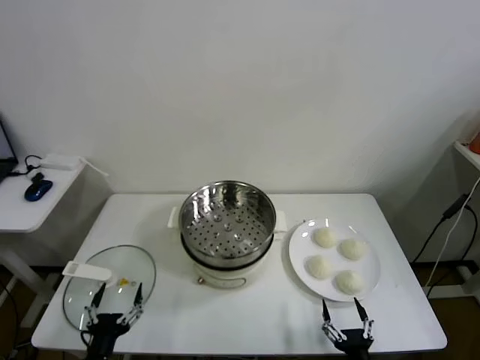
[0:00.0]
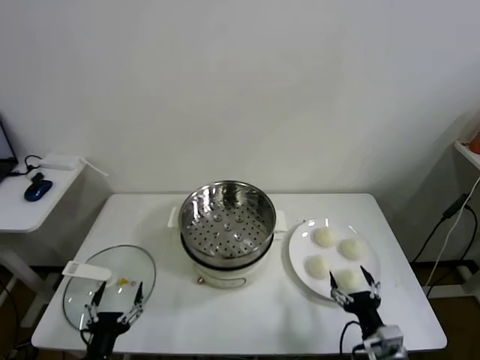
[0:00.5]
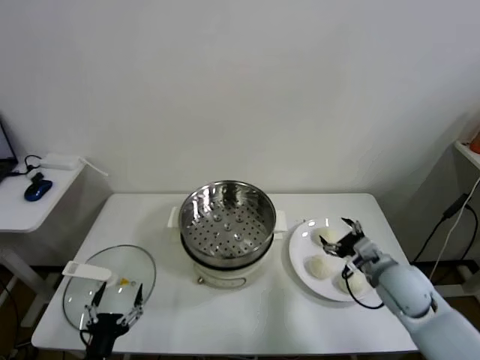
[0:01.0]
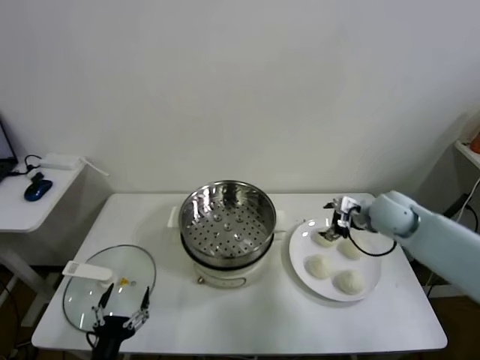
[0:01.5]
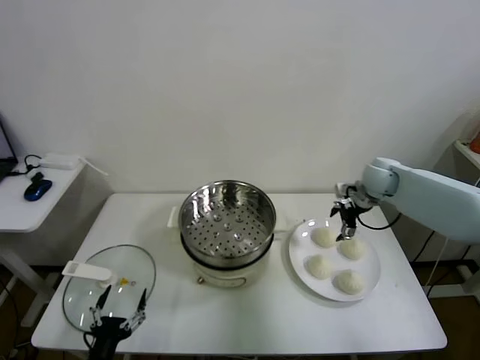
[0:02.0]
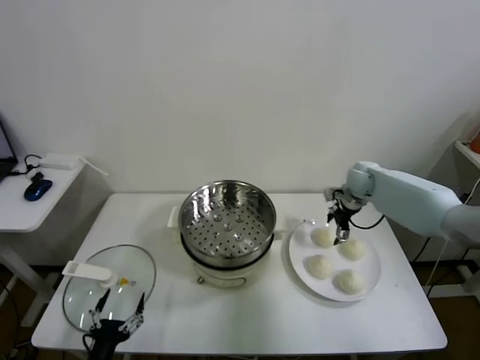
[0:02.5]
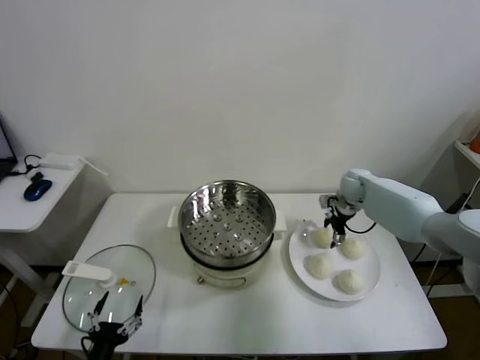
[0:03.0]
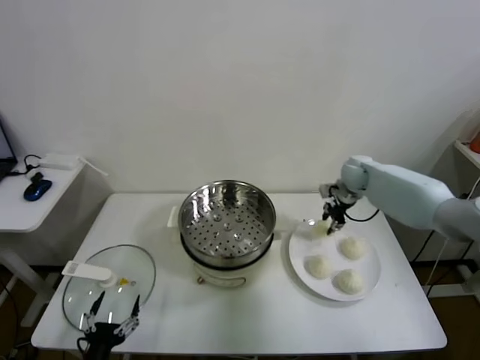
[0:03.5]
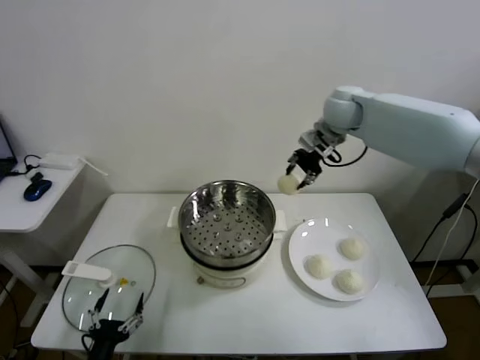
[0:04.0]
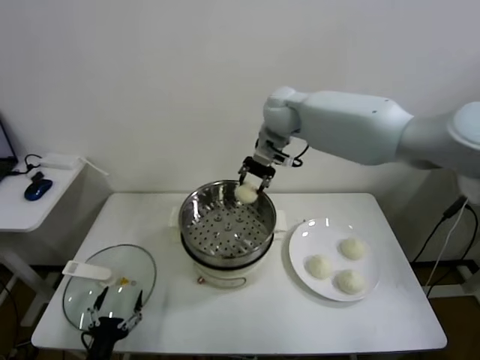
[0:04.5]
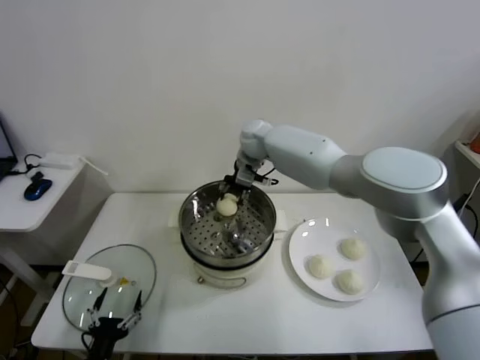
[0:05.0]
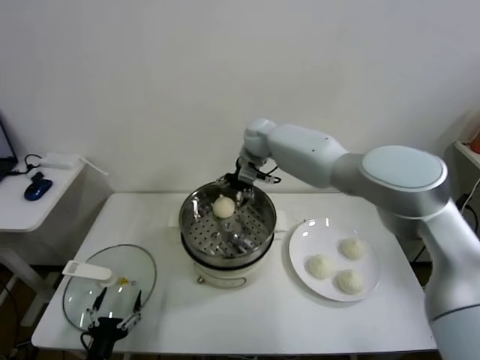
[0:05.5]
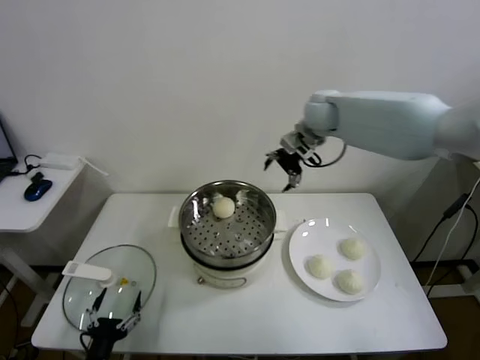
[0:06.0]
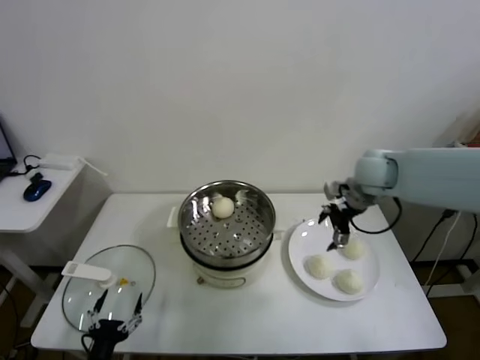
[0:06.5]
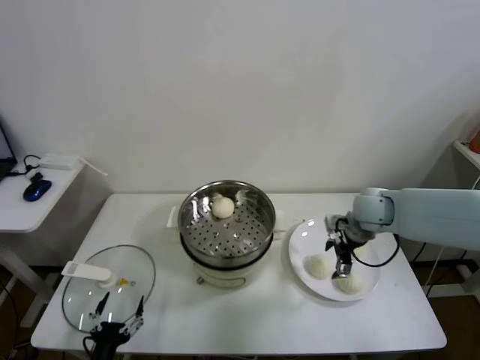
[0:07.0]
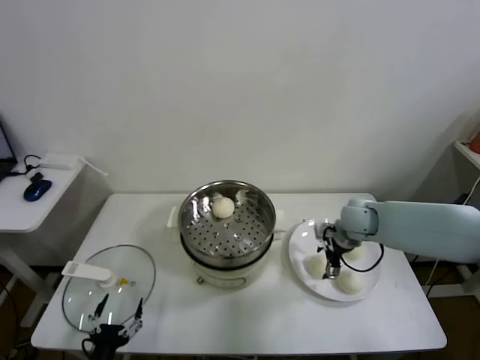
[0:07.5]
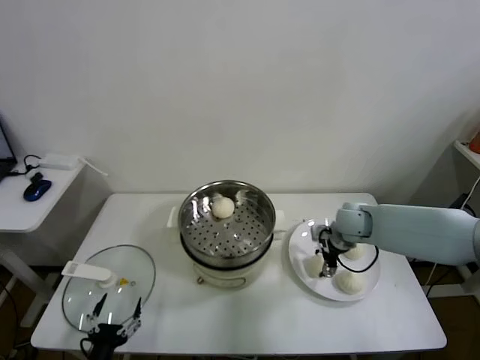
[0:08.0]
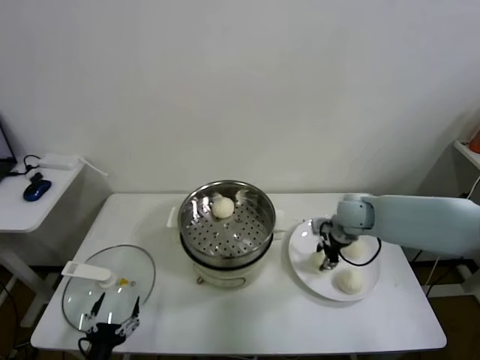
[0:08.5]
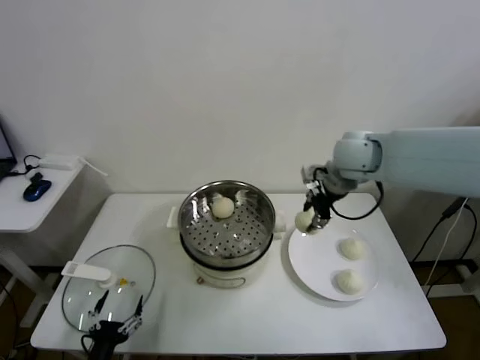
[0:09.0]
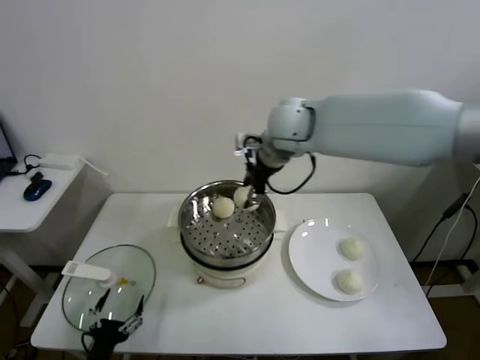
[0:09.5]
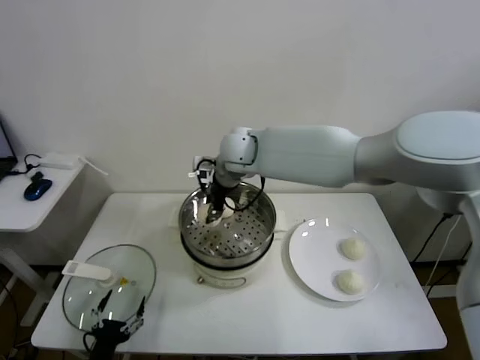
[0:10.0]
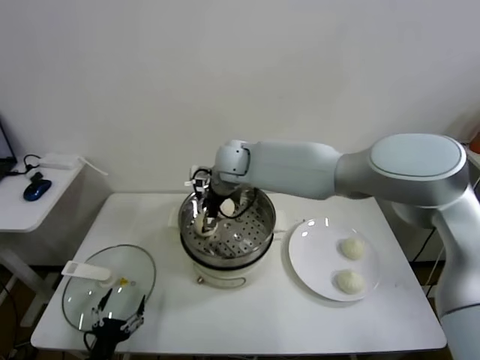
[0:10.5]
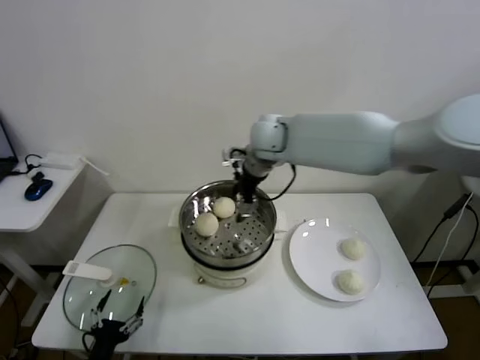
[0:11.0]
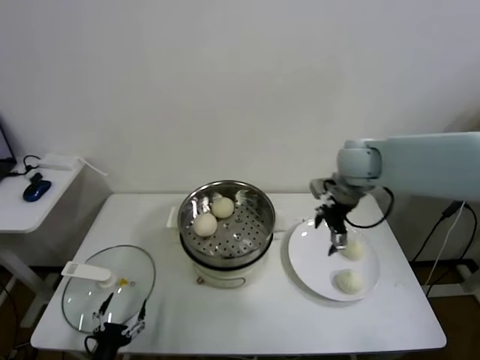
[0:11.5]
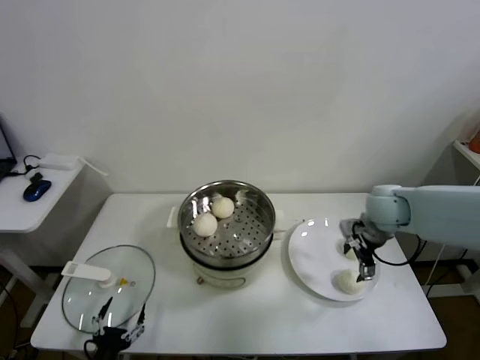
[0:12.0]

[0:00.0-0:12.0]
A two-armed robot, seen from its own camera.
Task of the whole recording: take steamed baozi put them in steamer.
Step, 0:00.0 to 0:03.0: Grasp the baozi in the plate with right gripper.
Step, 0:03.5 to 0:05.5: Place the baozi on the steamer with right gripper.
Step, 0:06.0 to 0:08.0: Grasp the baozi in the plate with right gripper.
Step, 0:08.5 to 0:10.5: Place the baozi on the steamer with right gripper.
0:02.0 to 0:04.0: The right gripper moves upward and to the left, approximately 25 cm, and closes.
0:04.0 to 0:06.0: The right gripper reaches some 15 cm to the left, then returns, and opens up.
0:06.0 to 0:08.0: The right gripper travels downward and backward by roughly 25 cm.
0:08.0 to 0:10.0: The right gripper shifts roughly 35 cm to the left and upward, and closes its fingers.
0:10.0 to 0:12.0: The right gripper goes about 35 cm to the right, and opens.

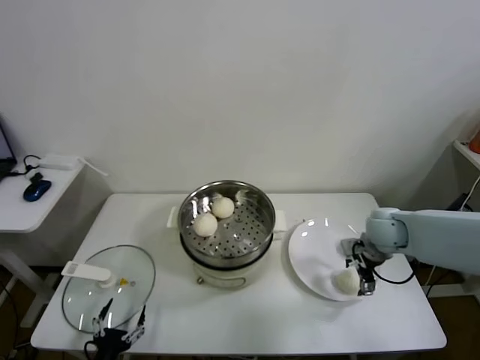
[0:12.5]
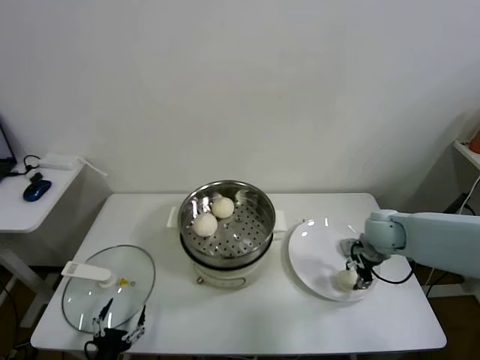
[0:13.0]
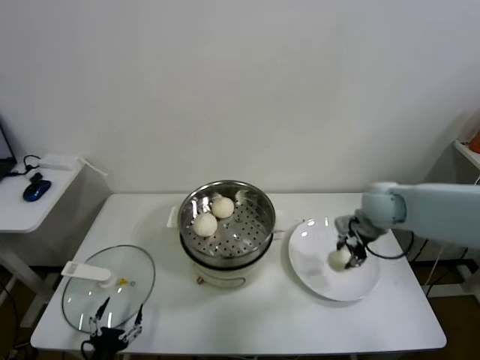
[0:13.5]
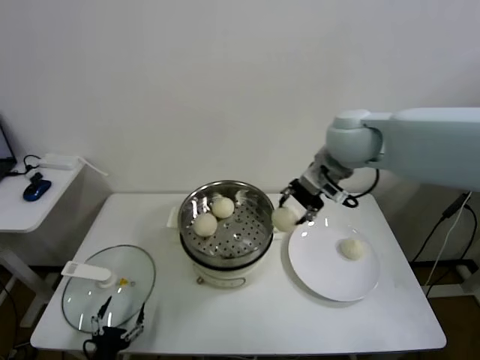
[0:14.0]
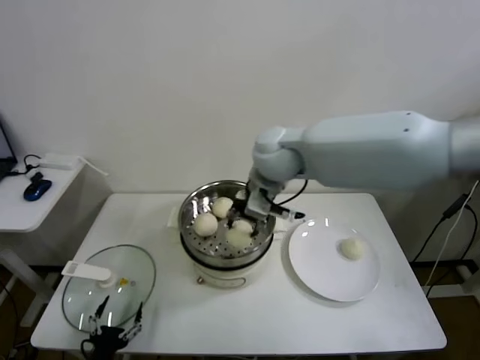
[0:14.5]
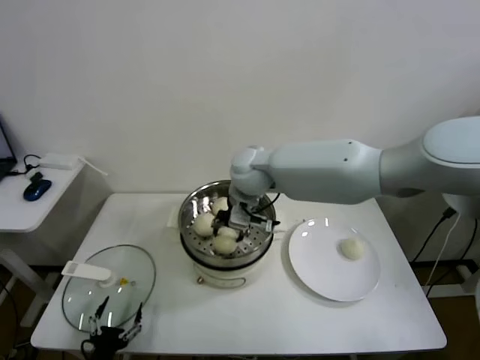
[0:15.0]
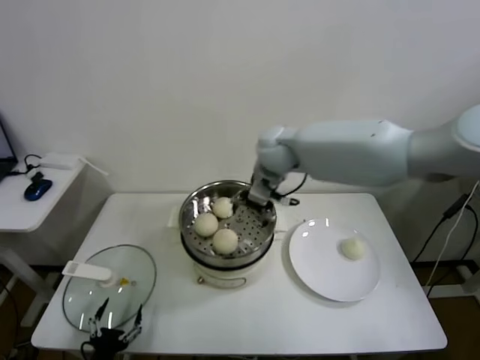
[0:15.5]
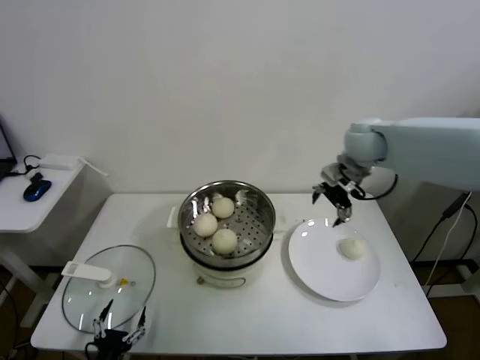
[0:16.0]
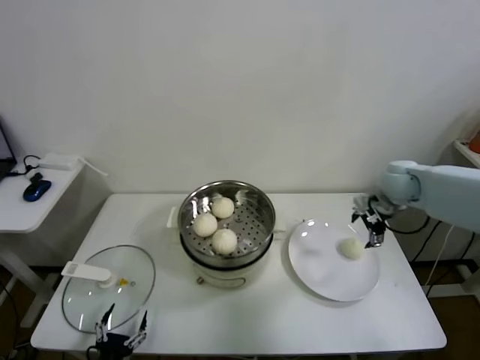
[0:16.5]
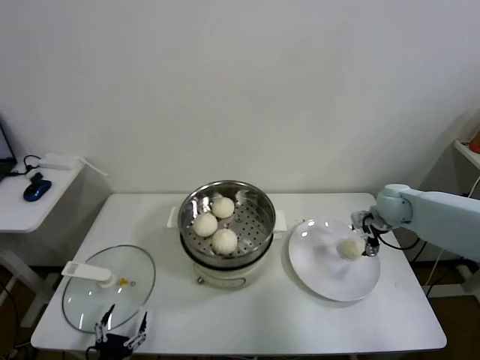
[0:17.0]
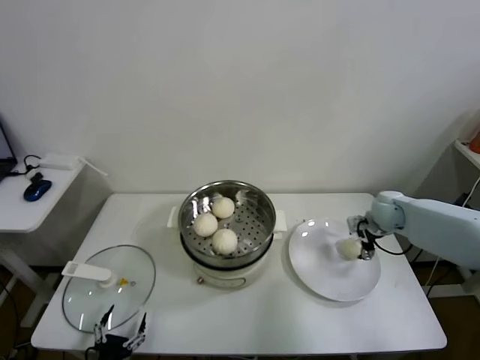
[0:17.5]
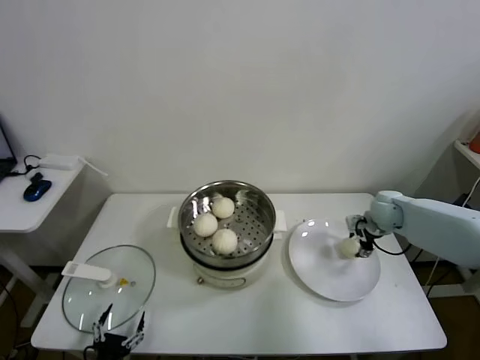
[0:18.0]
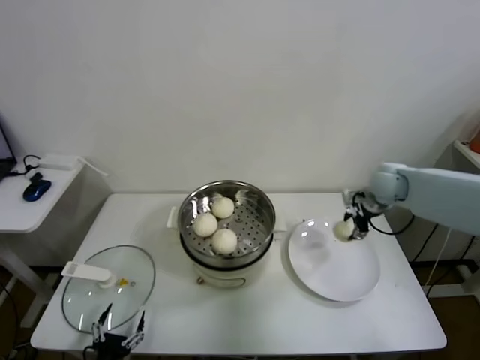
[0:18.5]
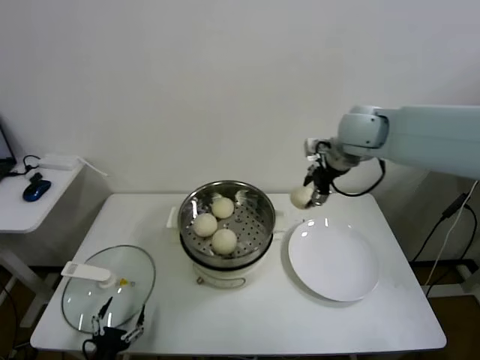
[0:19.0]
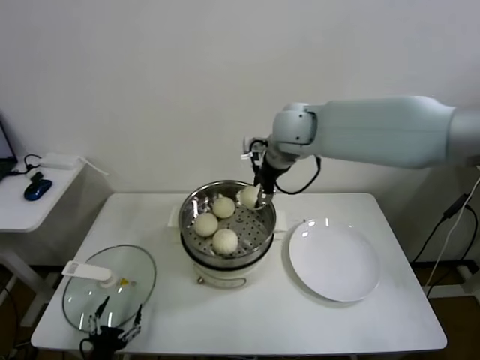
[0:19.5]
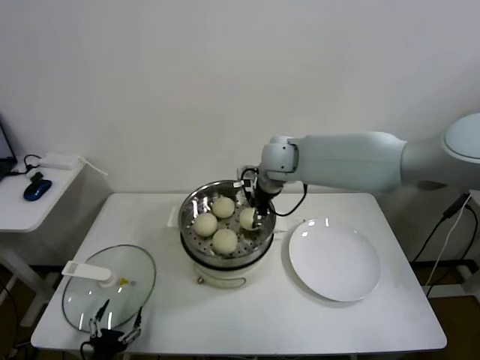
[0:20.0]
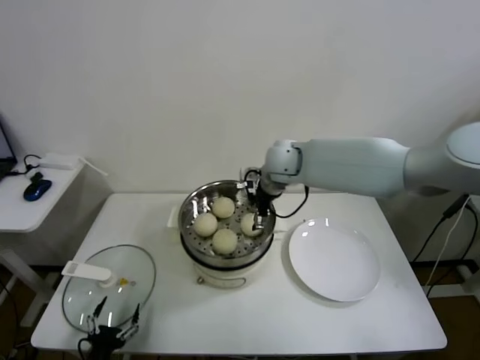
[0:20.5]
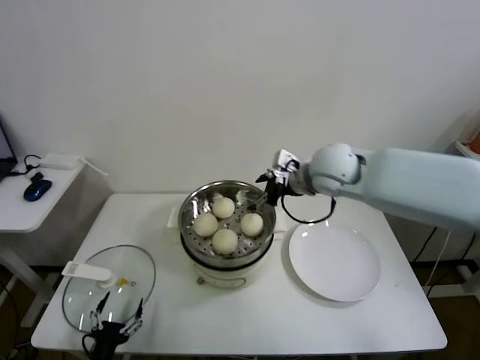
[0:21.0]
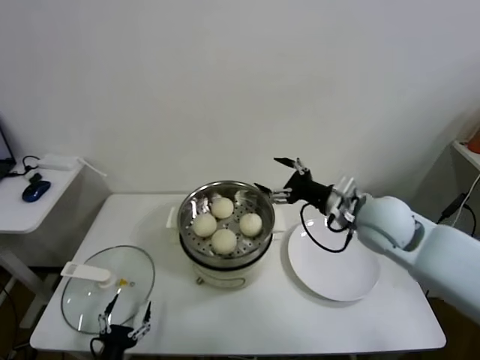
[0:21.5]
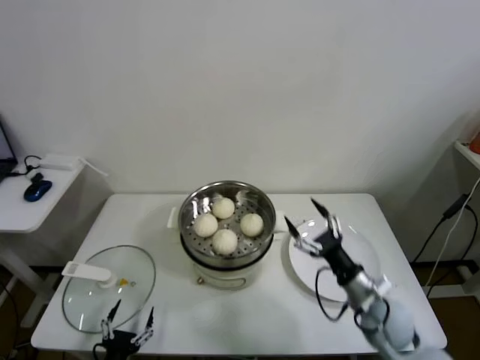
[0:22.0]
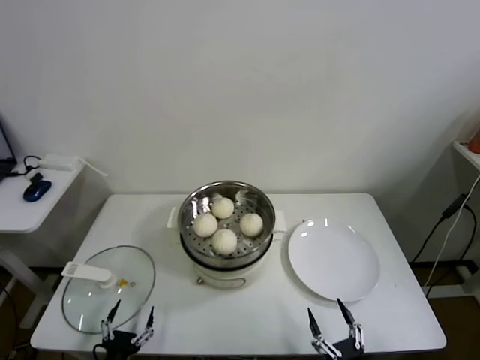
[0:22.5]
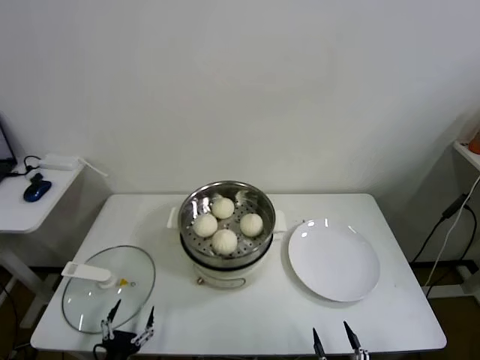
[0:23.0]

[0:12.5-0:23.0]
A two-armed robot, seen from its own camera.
Task of the whole recording: take steamed baozi put them in steamer.
Step, 0:13.5 to 0:15.0: Place the baozi on the steamer with right gripper.
Step, 0:15.5 to 0:17.5: Grasp the baozi in the plate with right gripper.
Step, 0:18.0 to 0:20.5: Place the baozi on the steamer with right gripper.
0:12.5 to 0:14.5: The right gripper moves to the left and upward, approximately 35 cm, and closes its fingers.
0:14.5 to 0:16.5: The right gripper travels to the right by some 30 cm, and opens its fingers.
0:16.5 to 0:19.0: The right gripper shifts roughly 15 cm upward and to the left, and closes up.
0:19.0 to 0:21.0: The right gripper goes approximately 10 cm to the left, and opens.
0:21.0 to 0:23.0: The right gripper shifts roughly 60 cm backward and downward.

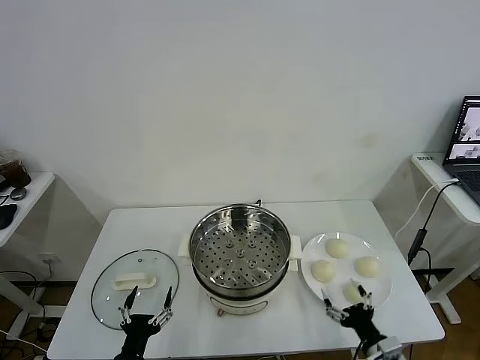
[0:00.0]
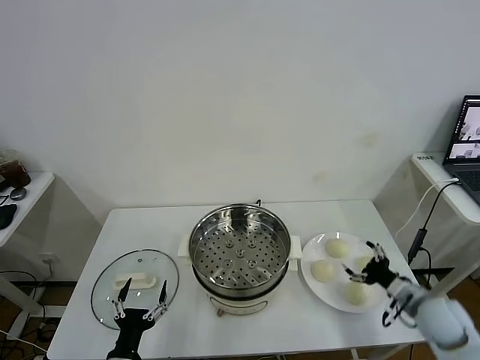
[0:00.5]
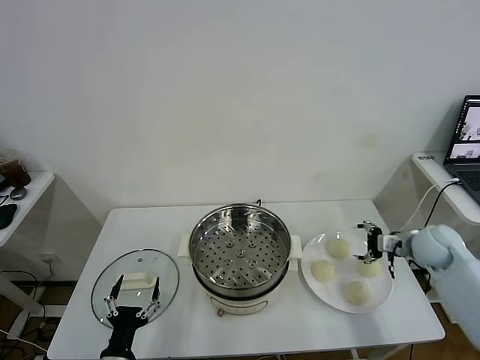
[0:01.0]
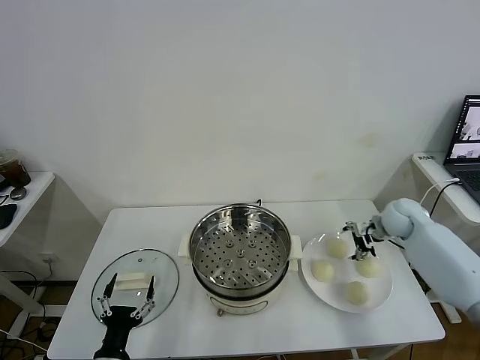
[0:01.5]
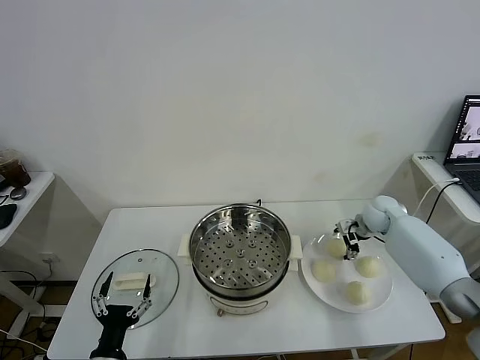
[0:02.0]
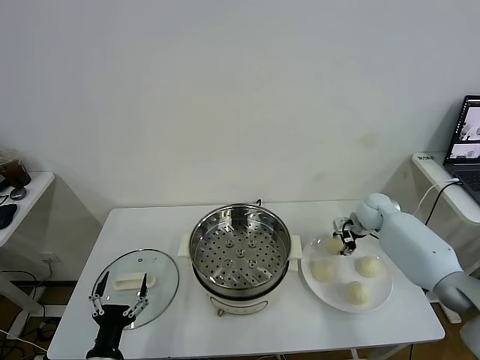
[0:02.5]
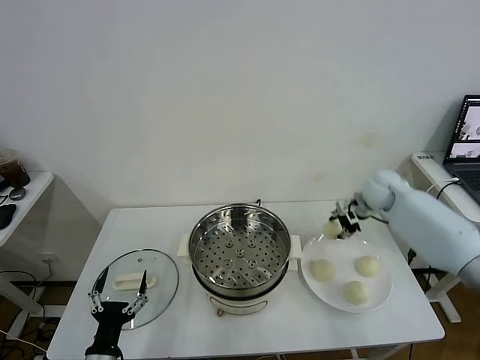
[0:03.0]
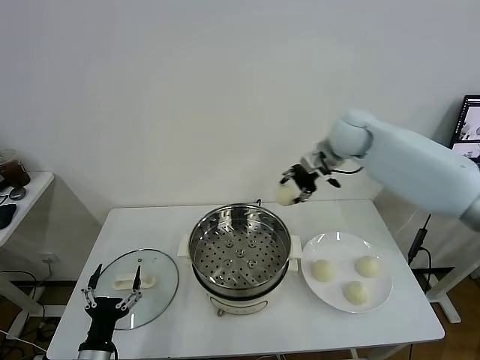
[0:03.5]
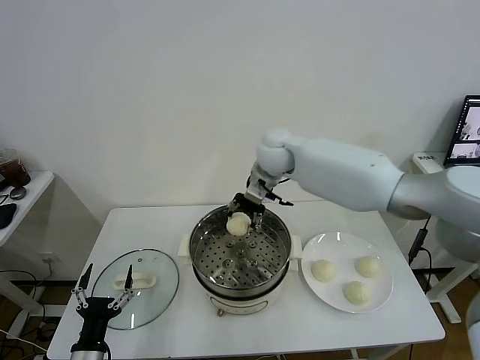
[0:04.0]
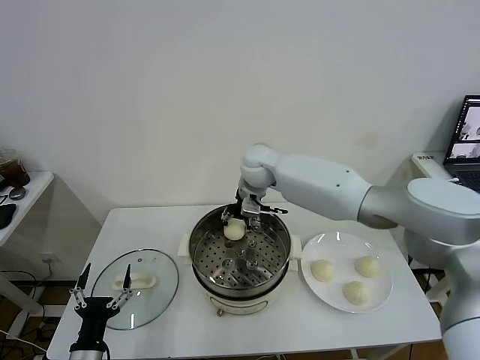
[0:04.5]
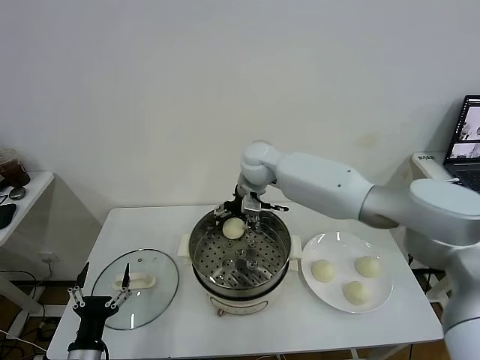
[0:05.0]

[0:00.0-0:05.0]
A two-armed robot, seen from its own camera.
Task of the whole recording: take steamed baozi put them in steamer.
Step, 0:00.0 to 0:02.5: Grasp the baozi in the plate with right gripper.
Step, 0:03.0 to 0:04.5: Place the baozi on the steamer with right gripper.
0:02.5 to 0:05.0: The right gripper shifts approximately 35 cm to the left and upward, and opens its fingers.
